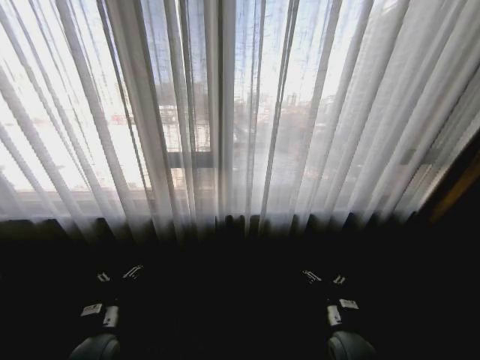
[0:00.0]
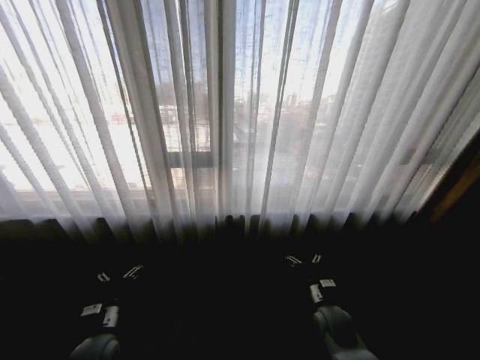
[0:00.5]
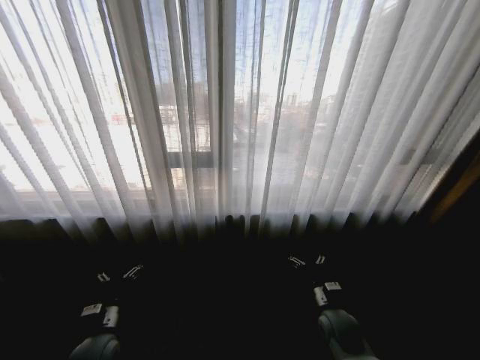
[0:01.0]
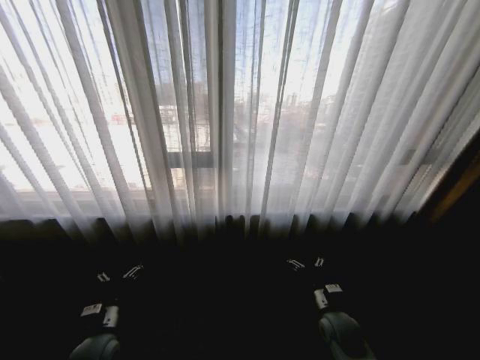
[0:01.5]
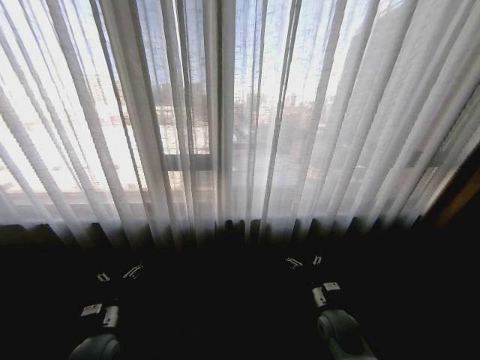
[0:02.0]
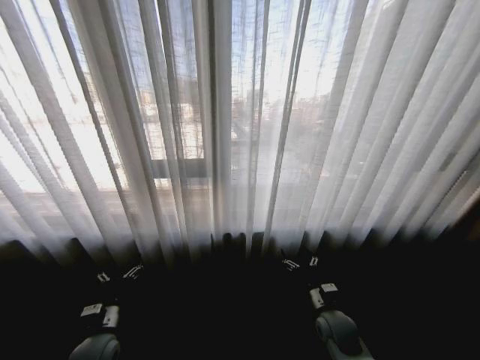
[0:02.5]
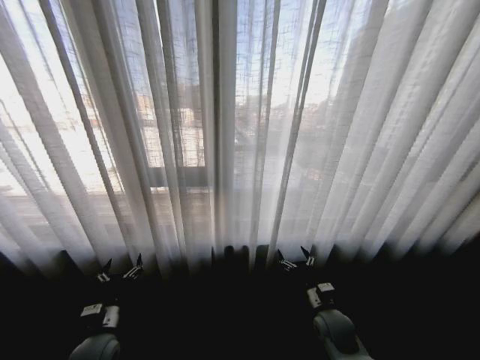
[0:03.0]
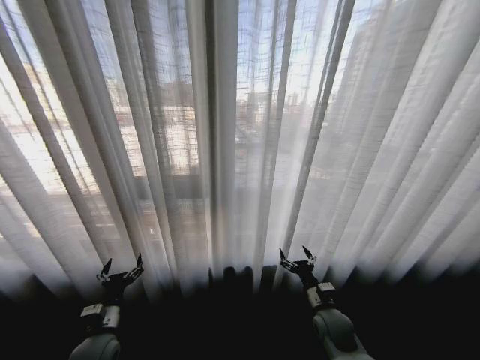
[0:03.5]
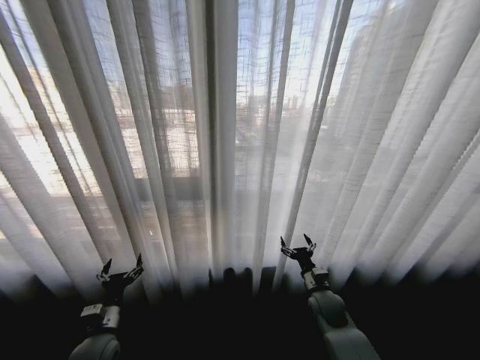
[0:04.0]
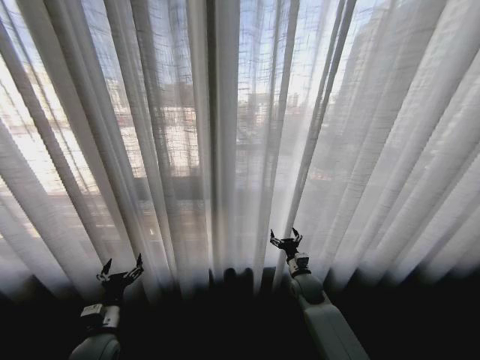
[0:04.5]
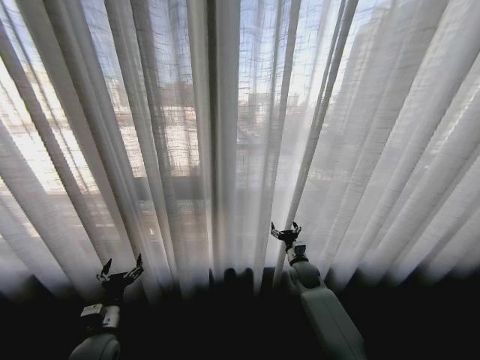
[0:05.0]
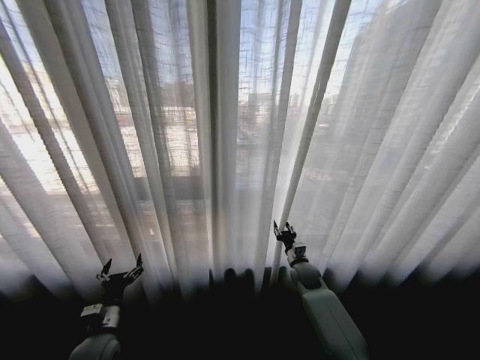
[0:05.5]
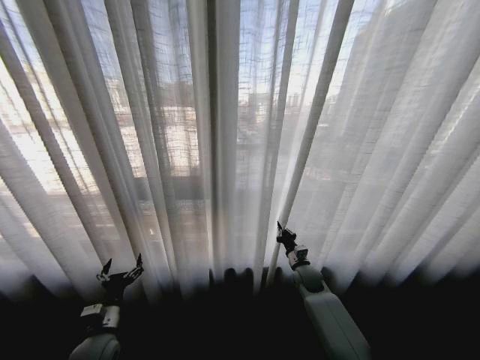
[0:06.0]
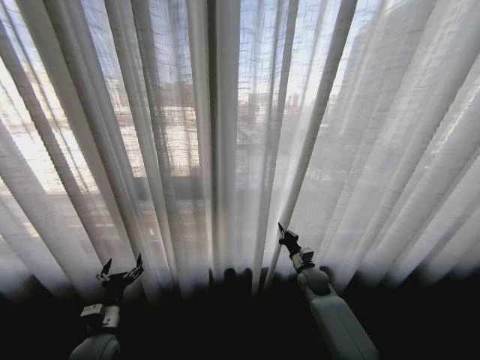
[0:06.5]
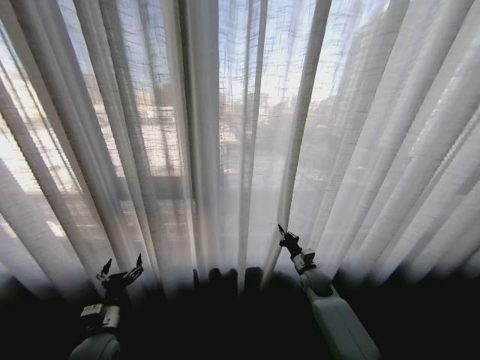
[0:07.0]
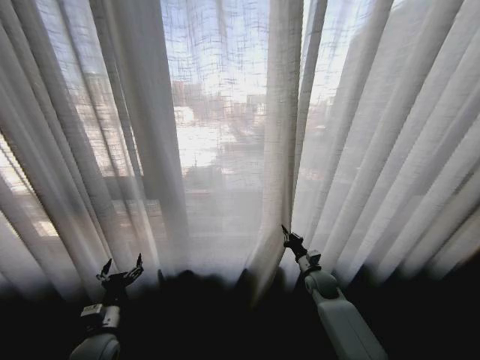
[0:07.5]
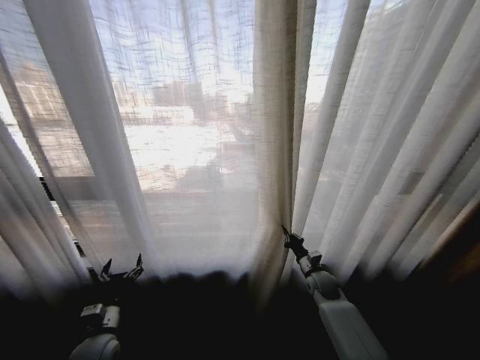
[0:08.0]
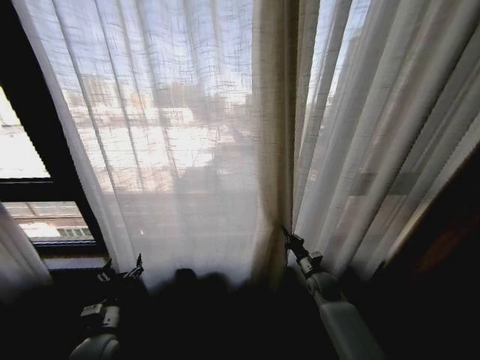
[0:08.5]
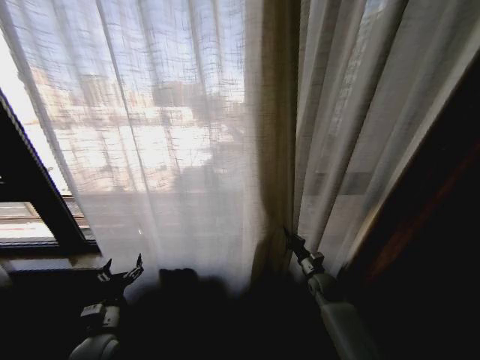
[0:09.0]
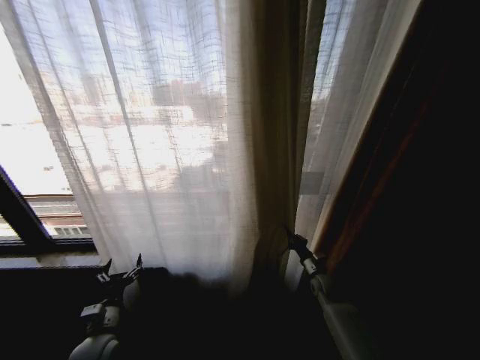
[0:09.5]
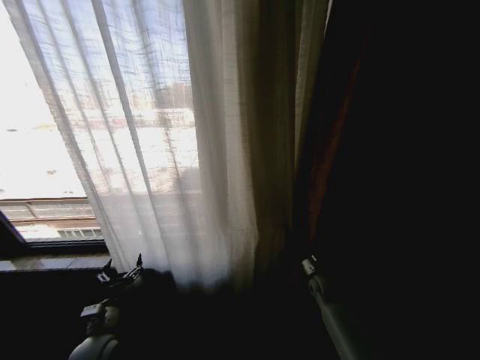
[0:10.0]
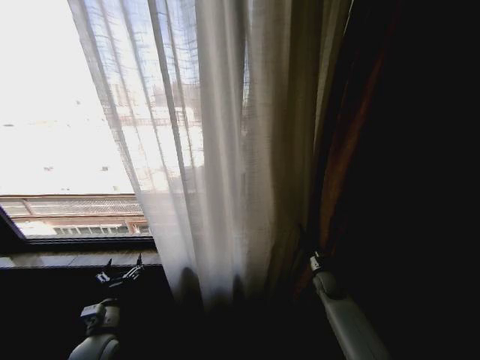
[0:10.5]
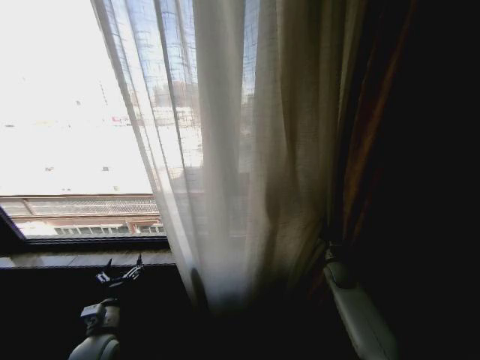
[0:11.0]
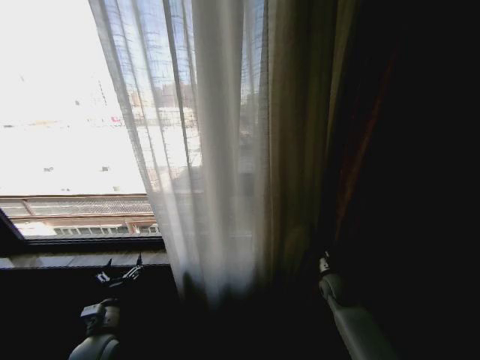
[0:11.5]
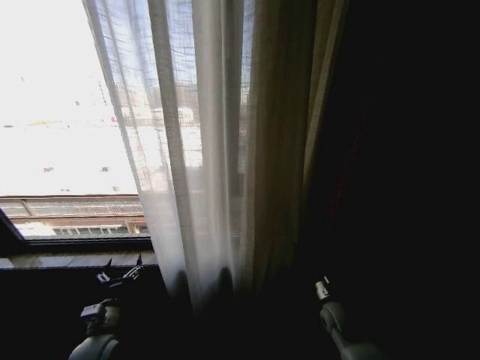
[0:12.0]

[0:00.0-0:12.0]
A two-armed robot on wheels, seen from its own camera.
Task of the whole recording: Open the curtains by pulling them apart, changing their state from closed to fully open.
0:02.0 to 0:04.0: The right gripper is displaced forward by about 5 cm.
0:04.0 to 0:06.0: The right gripper shifts roughly 10 cm forward, and closes.
0:06.0 to 0:08.0: The right gripper shifts by about 5 cm.
0:10.0 to 0:12.0: The right gripper is displaced backward by roughly 10 cm, and opens.

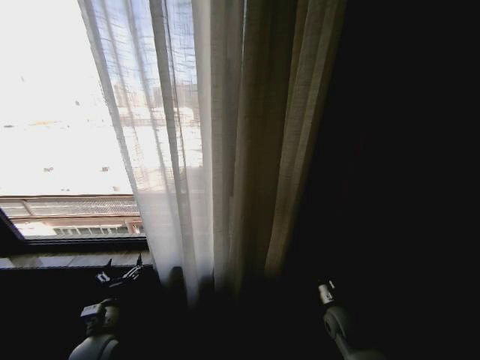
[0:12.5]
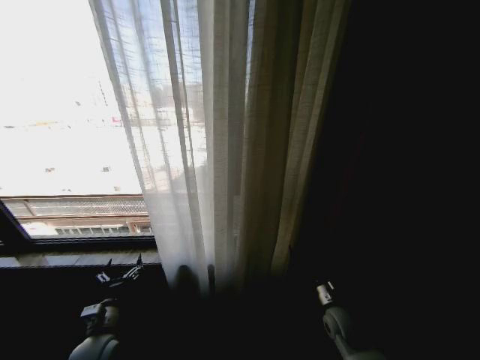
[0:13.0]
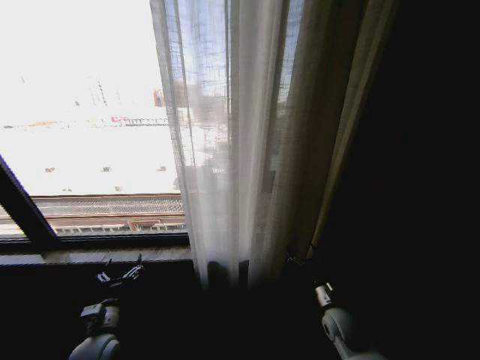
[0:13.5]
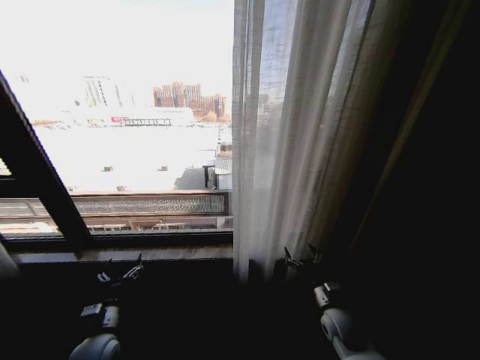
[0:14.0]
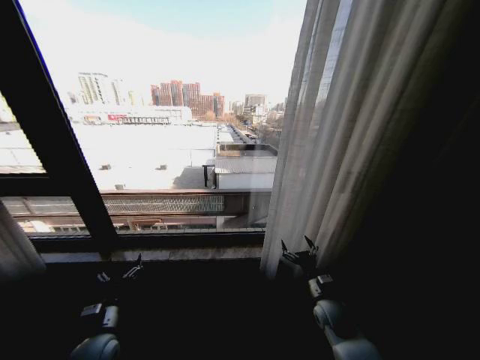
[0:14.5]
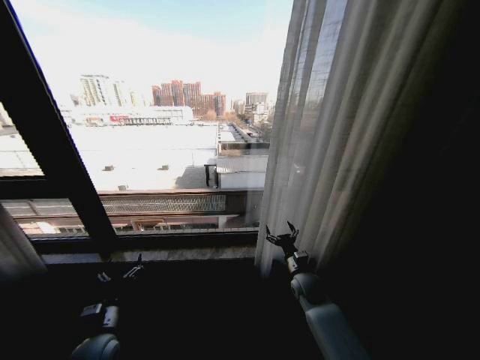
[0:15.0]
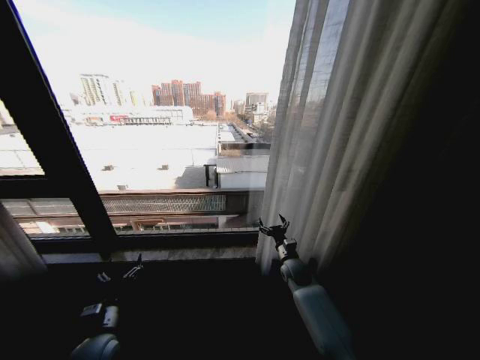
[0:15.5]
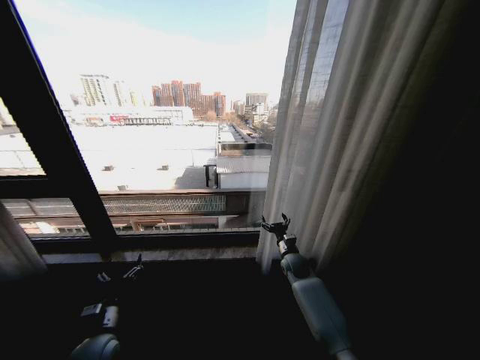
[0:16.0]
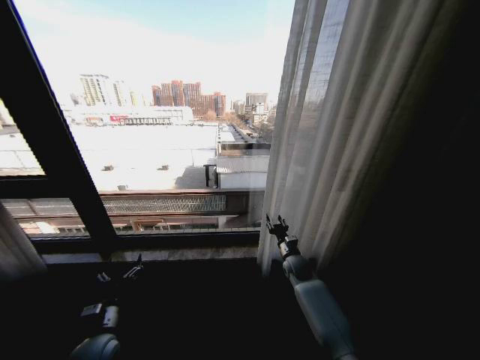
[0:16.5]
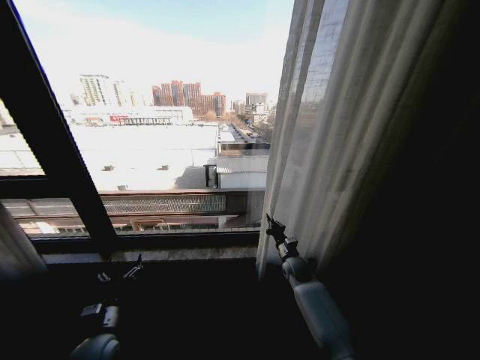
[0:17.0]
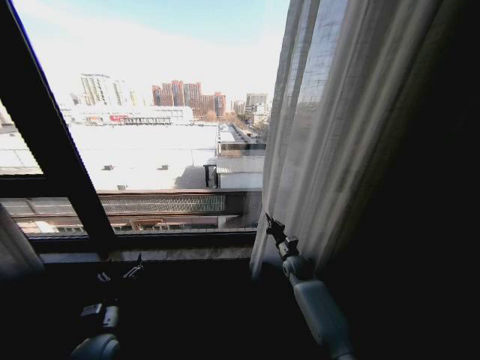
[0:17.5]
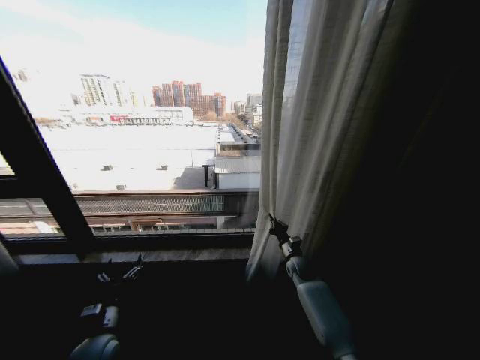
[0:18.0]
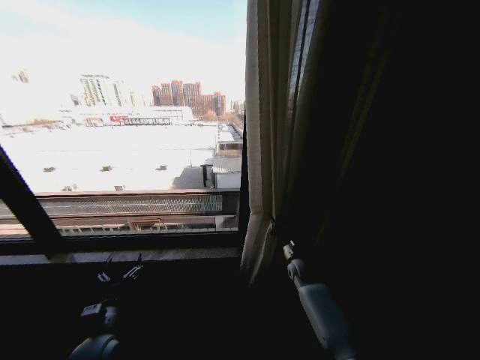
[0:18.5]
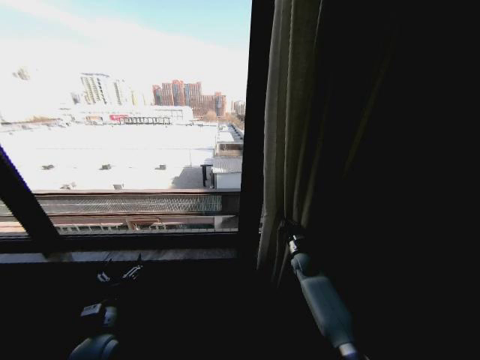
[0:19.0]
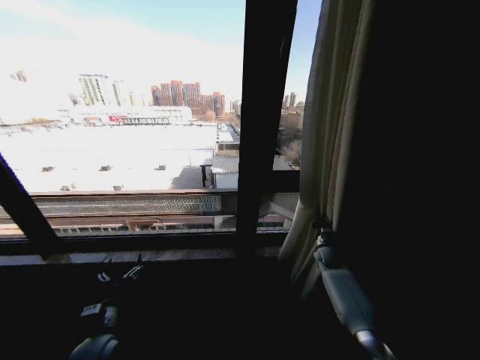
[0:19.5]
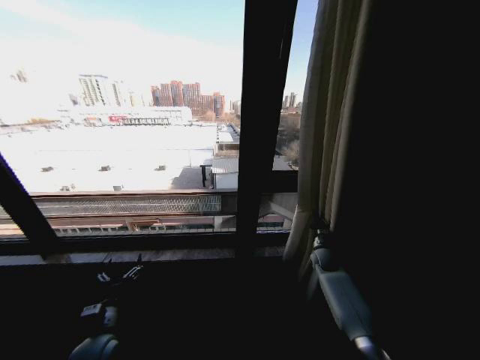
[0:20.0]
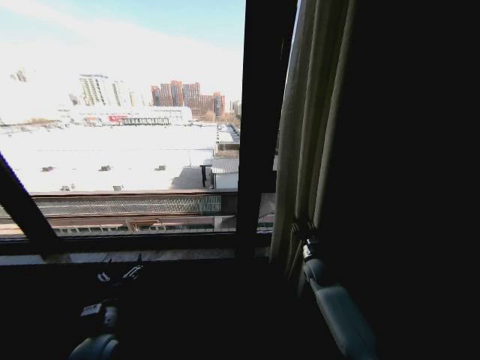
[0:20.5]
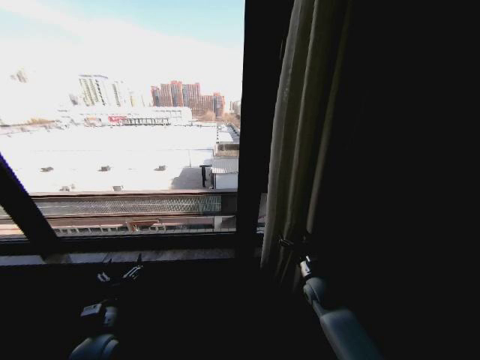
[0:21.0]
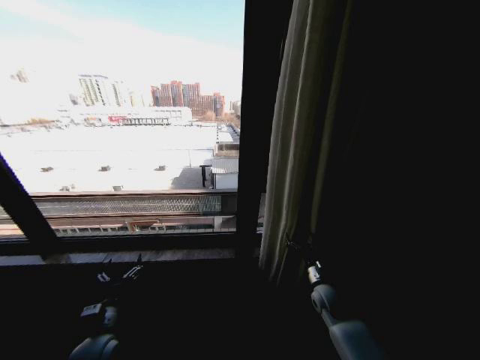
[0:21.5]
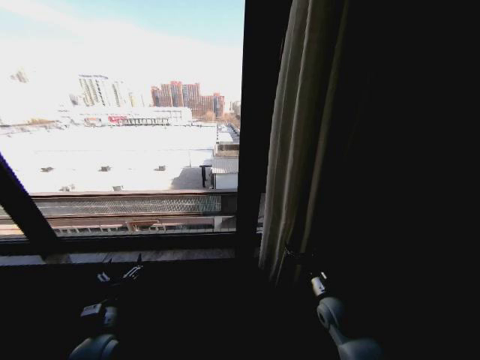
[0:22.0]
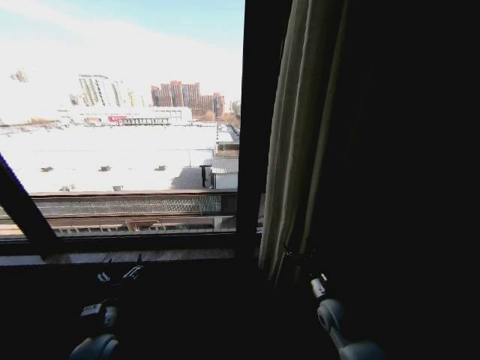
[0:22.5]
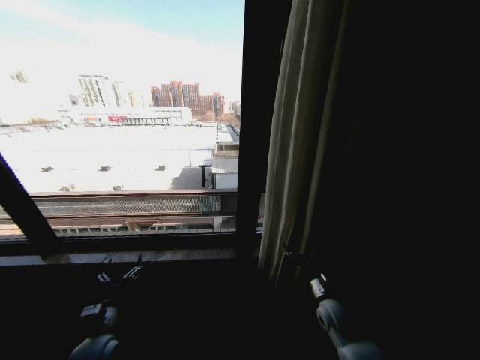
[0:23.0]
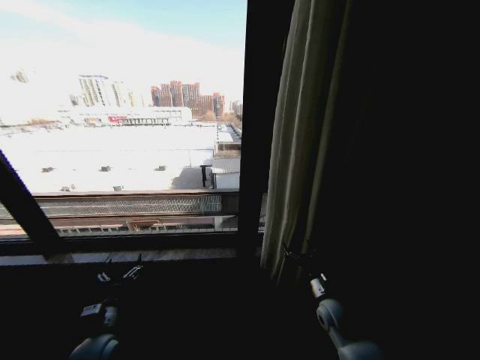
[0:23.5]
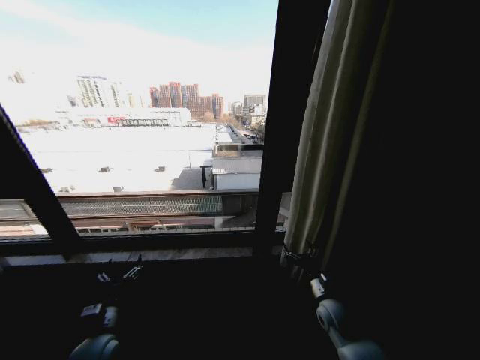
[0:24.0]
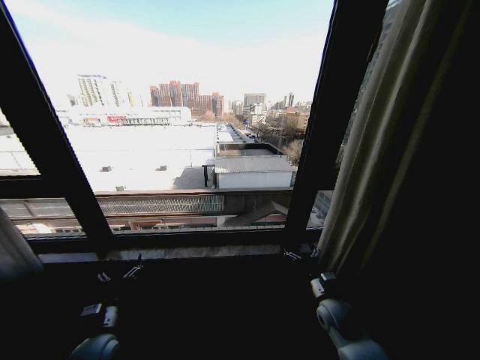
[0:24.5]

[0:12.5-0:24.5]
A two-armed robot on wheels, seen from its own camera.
Task of the whole recording: Open the curtains by pulling them apart, changing their state from closed to fully open.
0:14.5 to 0:16.5: The right gripper moves forward, roughly 15 cm, and closes.
0:16.5 to 0:18.5: The right gripper closes.
0:18.5 to 0:20.5: The right gripper travels to the right by approximately 5 cm, and opens up.
0:20.5 to 0:22.5: The right gripper heads backward, covering roughly 15 cm, and opens up.

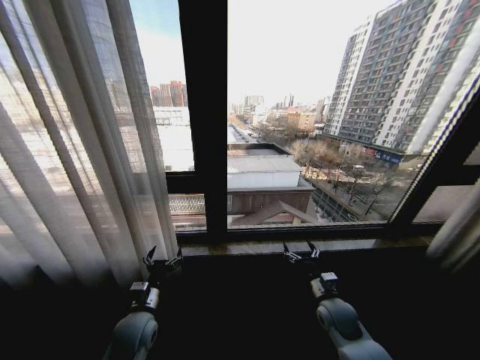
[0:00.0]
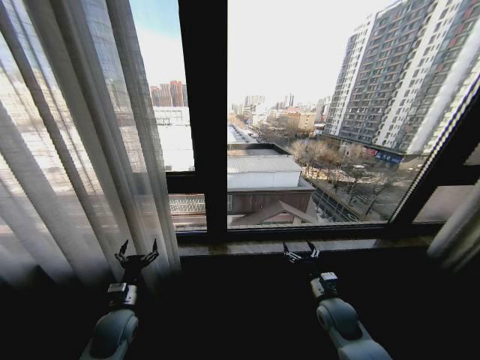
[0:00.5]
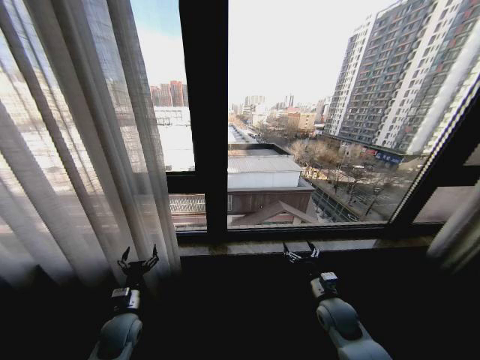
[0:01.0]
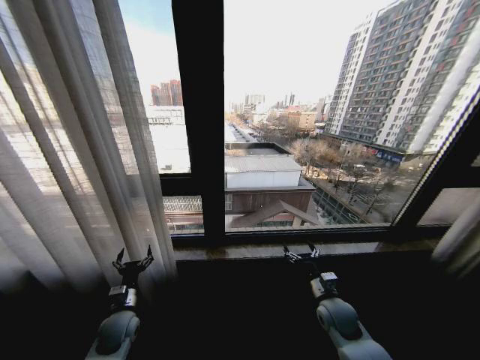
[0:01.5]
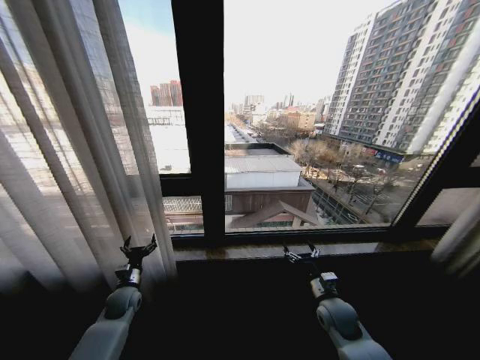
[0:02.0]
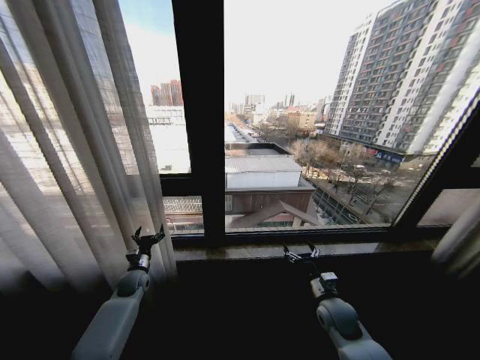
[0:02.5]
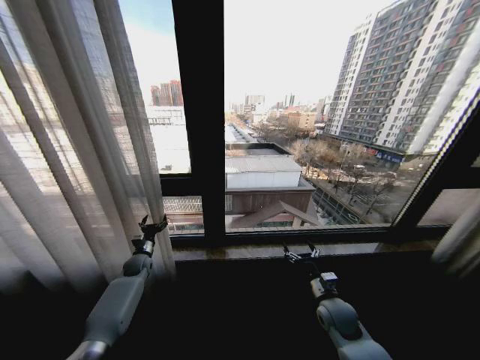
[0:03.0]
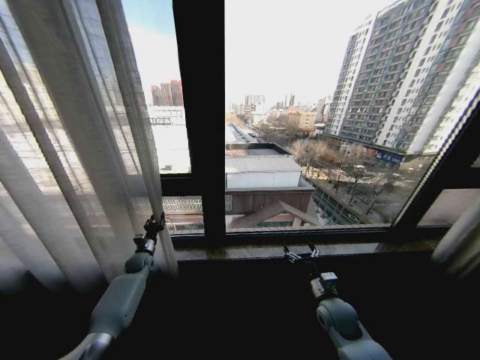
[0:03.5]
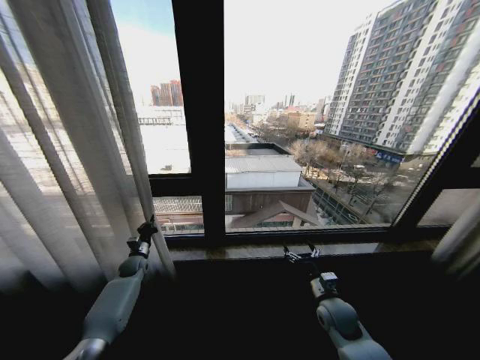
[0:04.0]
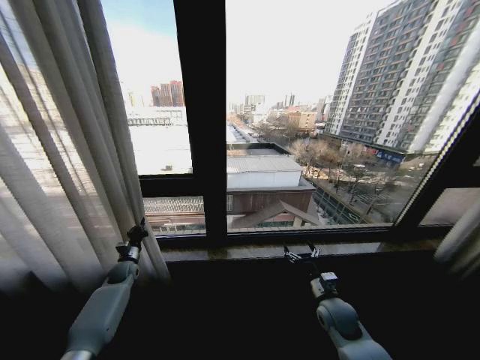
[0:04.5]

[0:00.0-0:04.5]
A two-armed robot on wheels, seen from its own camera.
Task of the whole recording: Open the curtains by pulling them apart, changing their state from closed to fully open.
0:00.0 to 0:02.0: The left gripper heads to the left, forward and downward, covering roughly 15 cm.
0:02.0 to 0:04.5: The left gripper travels forward and to the left by some 10 cm, and closes its fingers.
